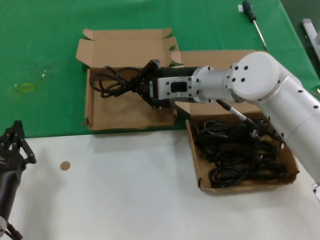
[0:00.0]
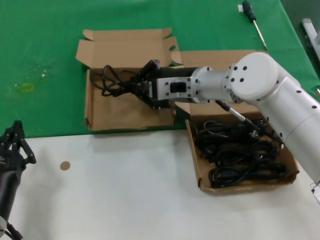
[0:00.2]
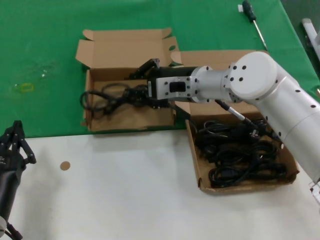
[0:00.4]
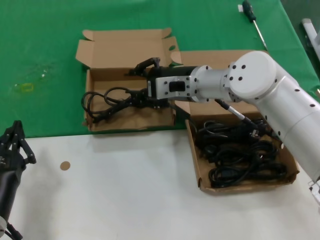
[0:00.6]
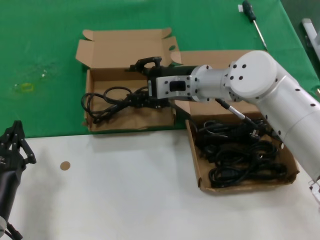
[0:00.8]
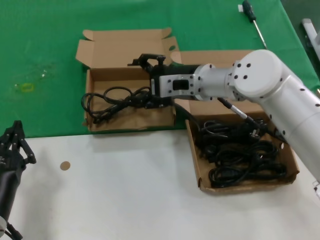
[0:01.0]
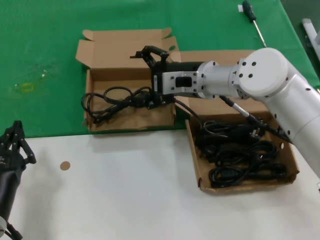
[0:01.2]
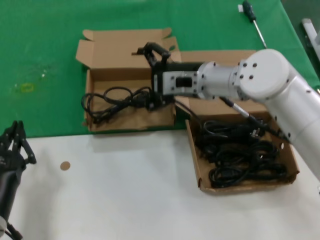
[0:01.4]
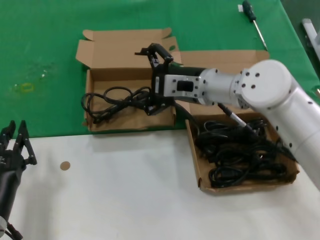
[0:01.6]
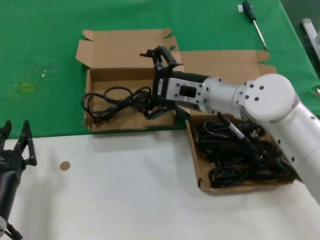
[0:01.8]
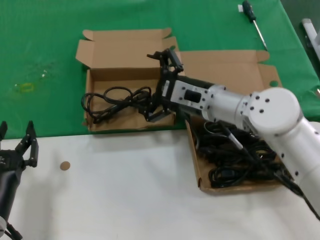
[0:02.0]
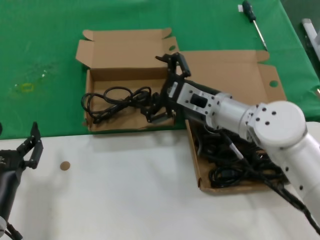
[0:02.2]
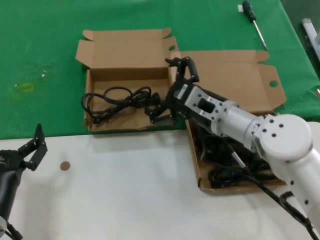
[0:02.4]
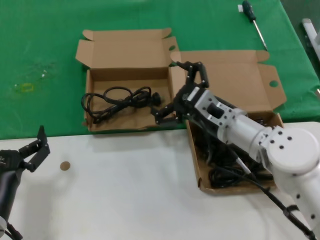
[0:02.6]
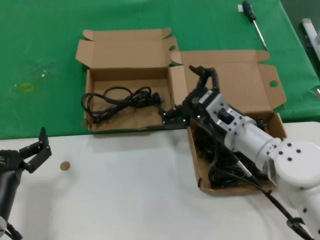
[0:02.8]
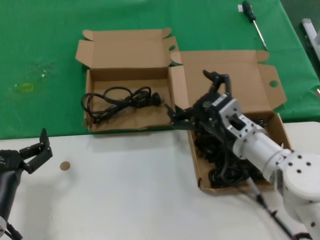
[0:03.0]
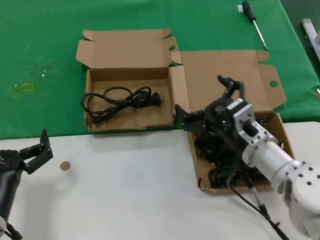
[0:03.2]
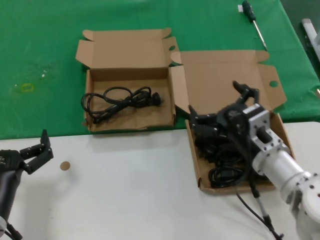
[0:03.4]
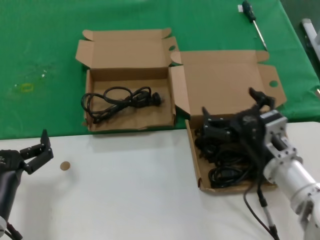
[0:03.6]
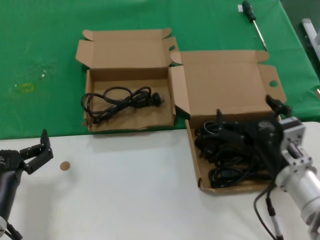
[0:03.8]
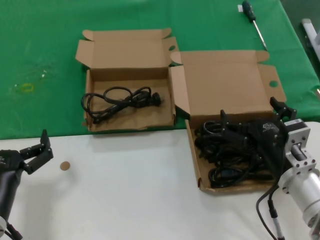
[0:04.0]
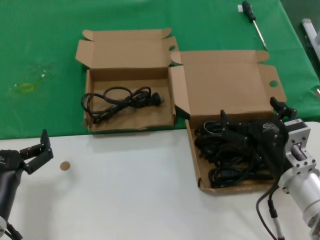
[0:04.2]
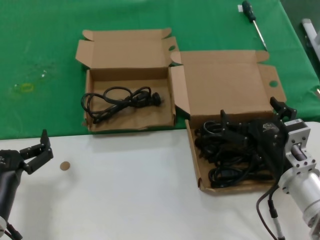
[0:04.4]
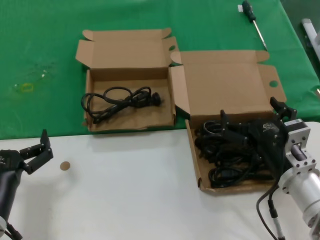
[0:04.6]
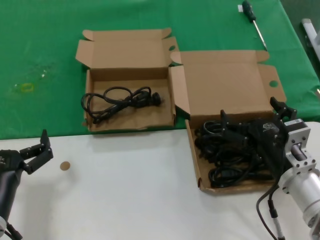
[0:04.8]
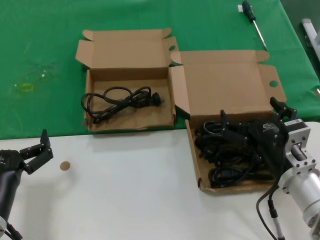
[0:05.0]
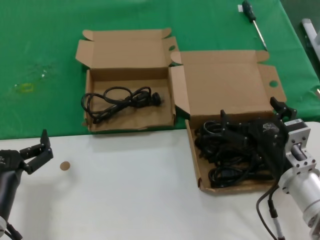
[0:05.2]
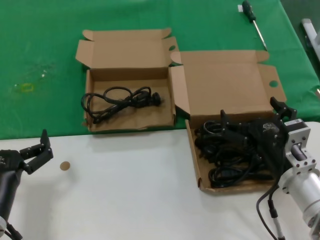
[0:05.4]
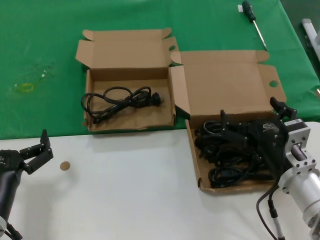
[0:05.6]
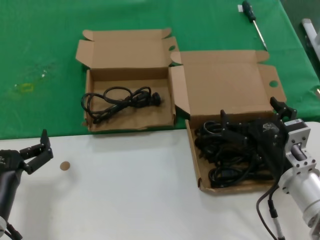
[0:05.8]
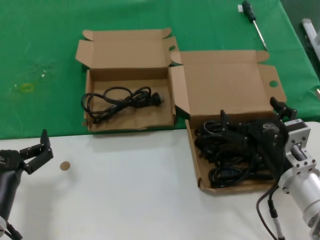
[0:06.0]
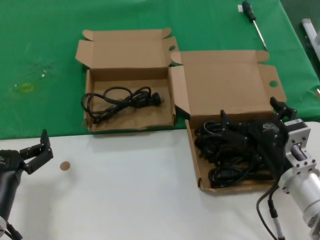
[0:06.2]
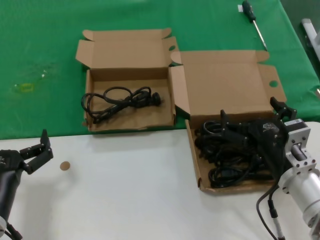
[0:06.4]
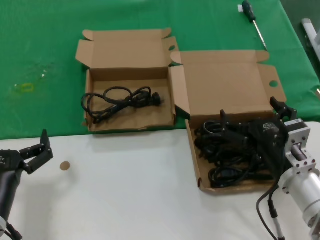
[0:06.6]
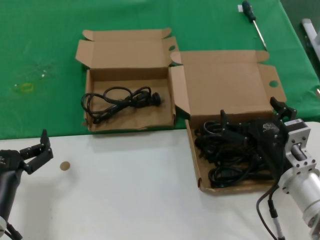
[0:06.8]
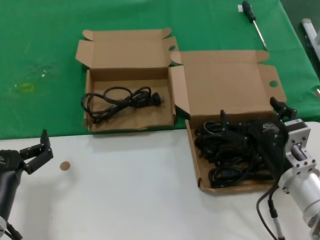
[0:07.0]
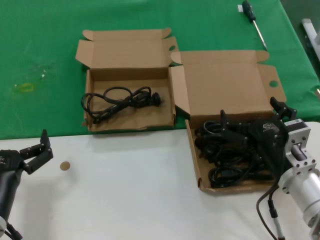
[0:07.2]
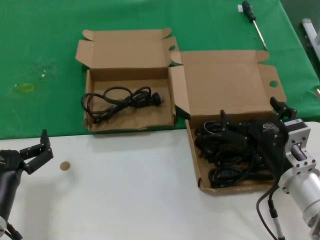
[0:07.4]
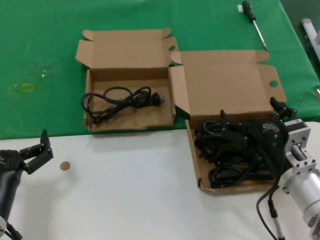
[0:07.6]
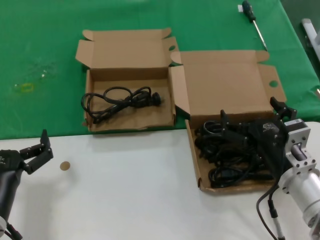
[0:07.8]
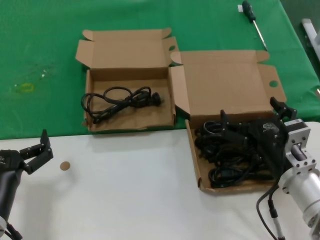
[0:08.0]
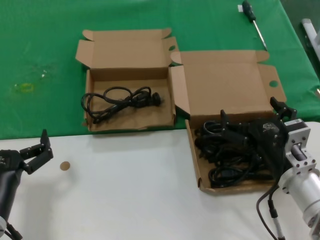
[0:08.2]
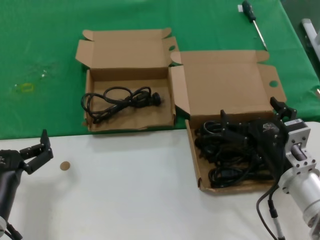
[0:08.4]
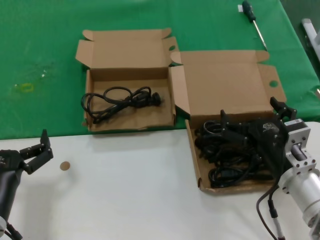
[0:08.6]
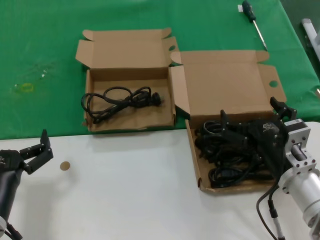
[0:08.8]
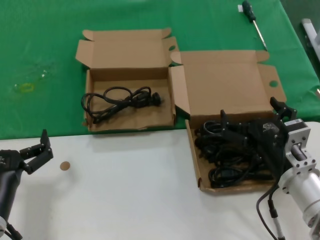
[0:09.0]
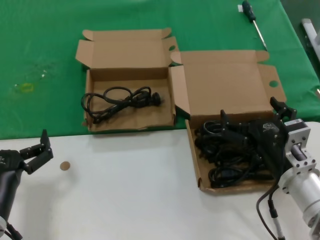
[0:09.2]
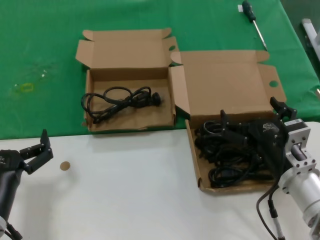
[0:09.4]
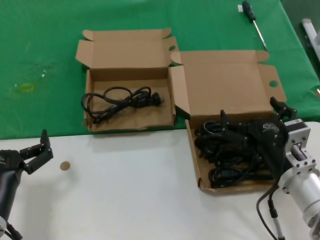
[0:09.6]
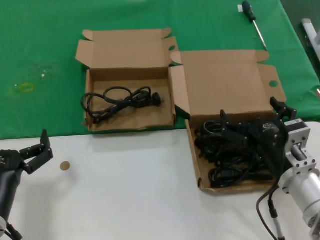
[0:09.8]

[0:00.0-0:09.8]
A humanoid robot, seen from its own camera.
Task of the whole recording: take the parts from the box containing them and put them into an empty box.
0:00.0 to 0:01.4: Neither hand changes place.
0:01.4 to 0:02.8: The right hand travels downward and backward by some 15 cm.
0:02.8 to 0:04.2: The right hand is displaced backward and to the right by about 10 cm.
0:04.2 to 0:09.8: Both hands stay put.

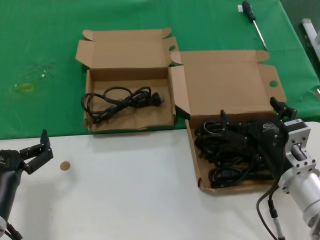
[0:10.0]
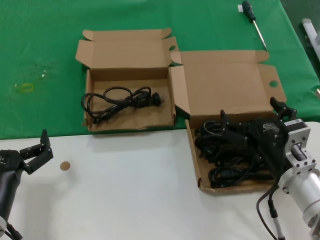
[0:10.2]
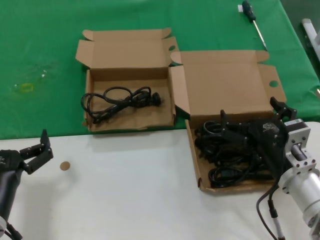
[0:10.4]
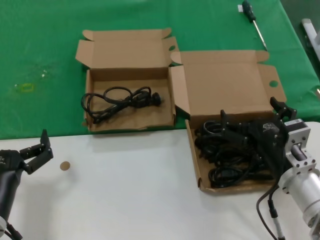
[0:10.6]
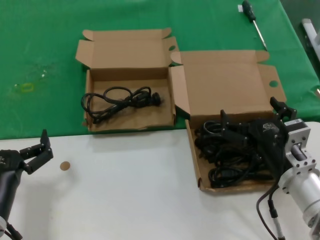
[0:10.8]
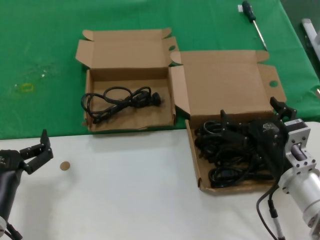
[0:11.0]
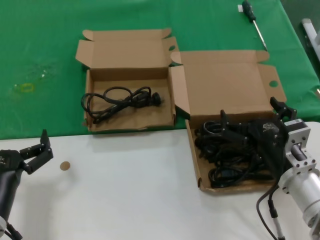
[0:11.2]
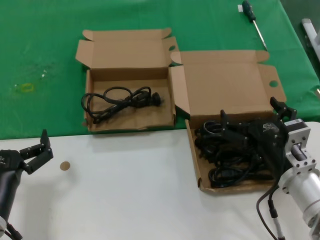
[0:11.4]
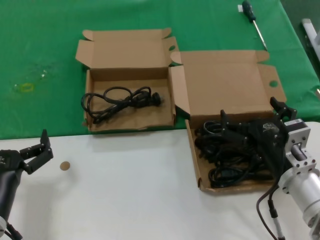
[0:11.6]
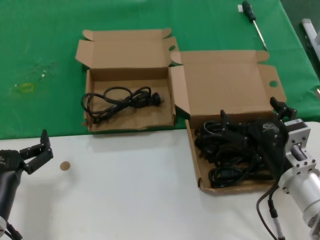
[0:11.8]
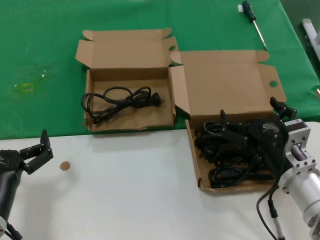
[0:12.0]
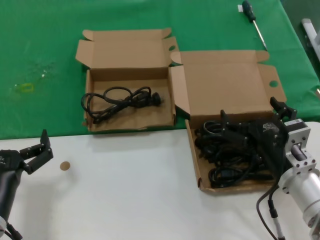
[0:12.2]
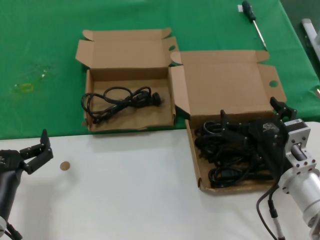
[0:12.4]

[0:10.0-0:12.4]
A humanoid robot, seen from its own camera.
Task of the whole recording: take the parts from the box containing them and put them into an empty box.
0:10.0 to 0:12.4: Both hands stay about where they are.
